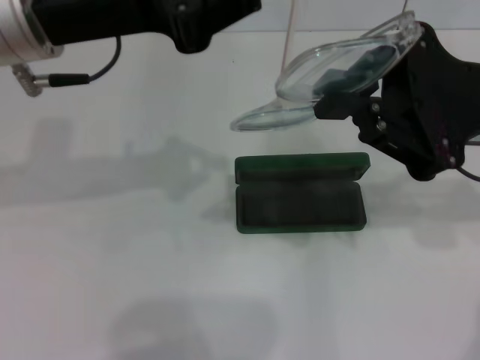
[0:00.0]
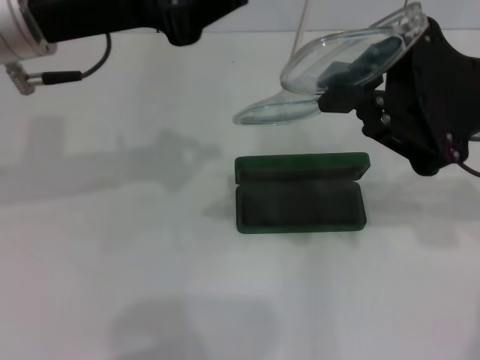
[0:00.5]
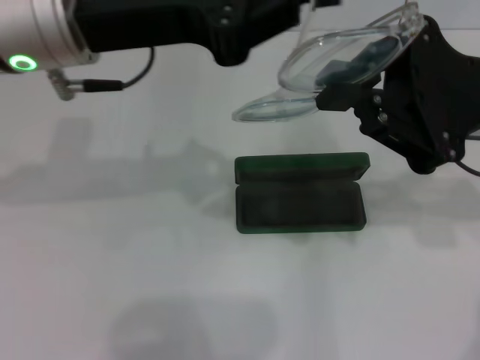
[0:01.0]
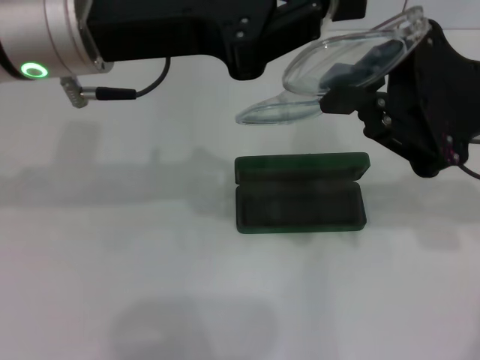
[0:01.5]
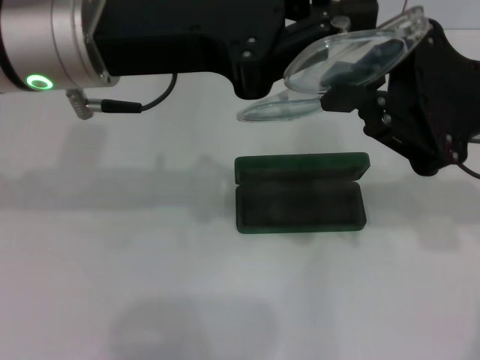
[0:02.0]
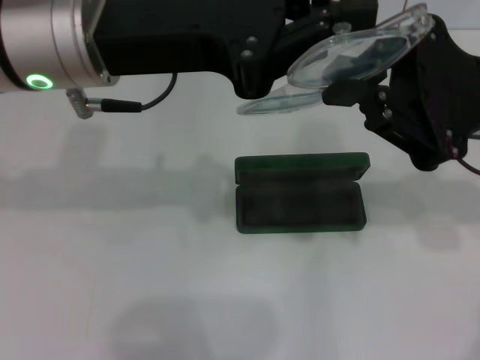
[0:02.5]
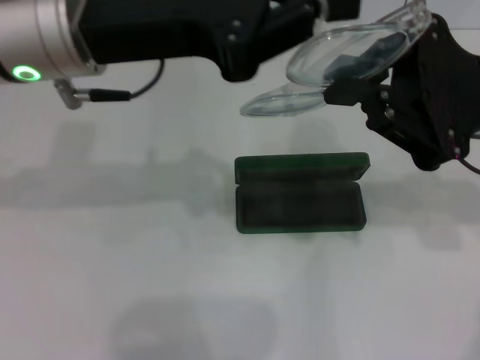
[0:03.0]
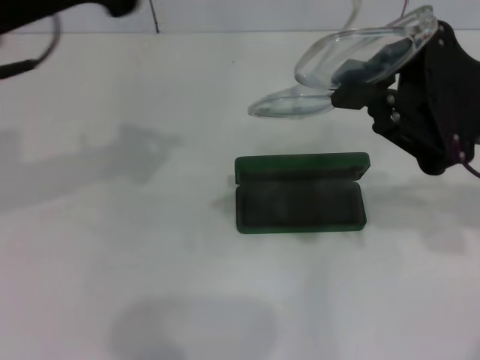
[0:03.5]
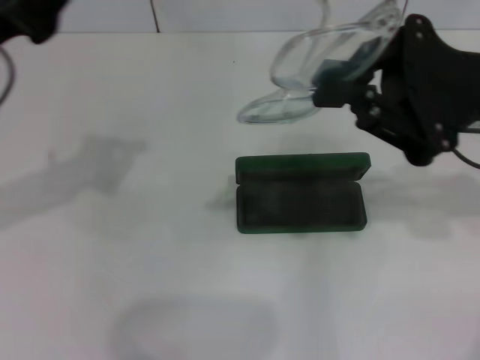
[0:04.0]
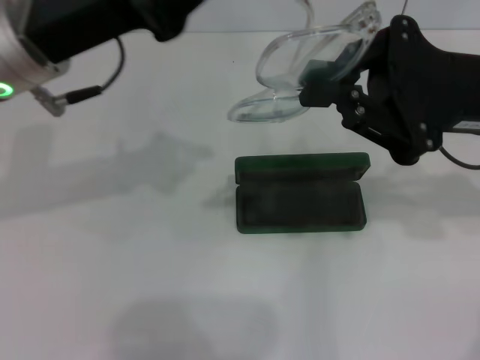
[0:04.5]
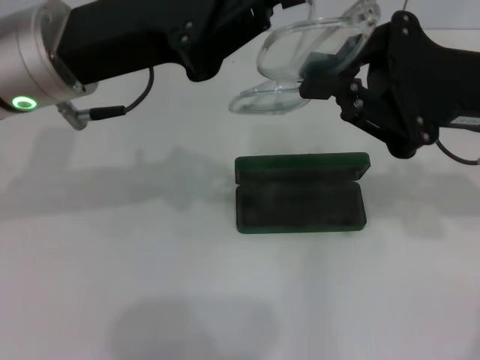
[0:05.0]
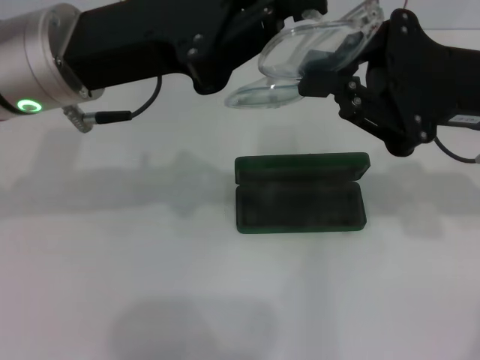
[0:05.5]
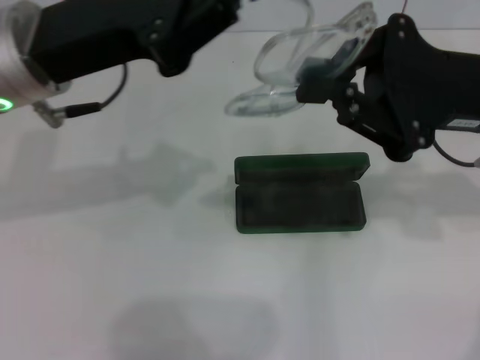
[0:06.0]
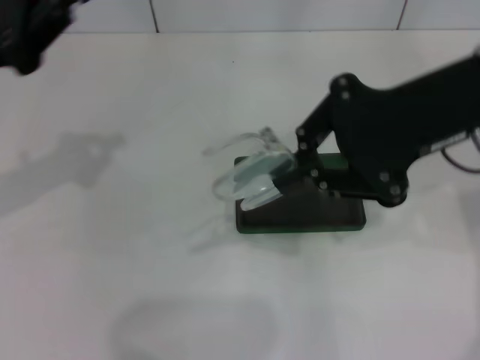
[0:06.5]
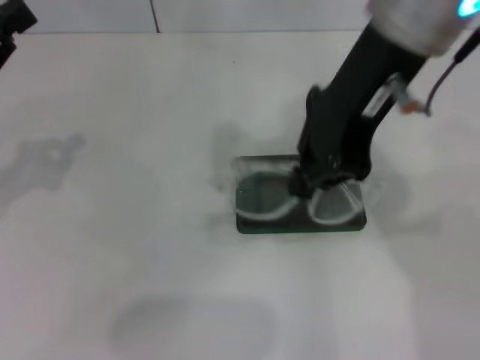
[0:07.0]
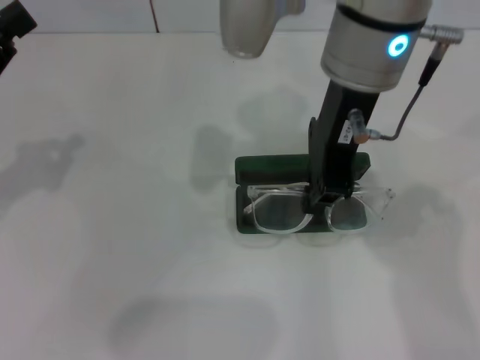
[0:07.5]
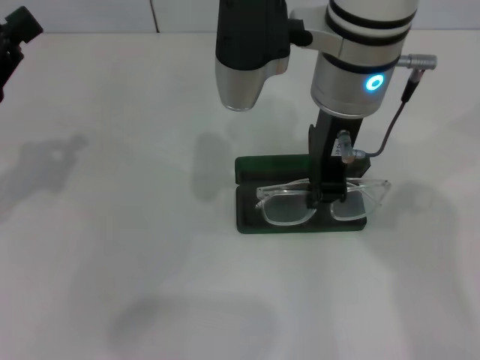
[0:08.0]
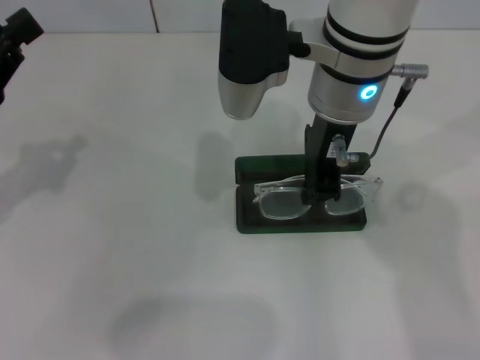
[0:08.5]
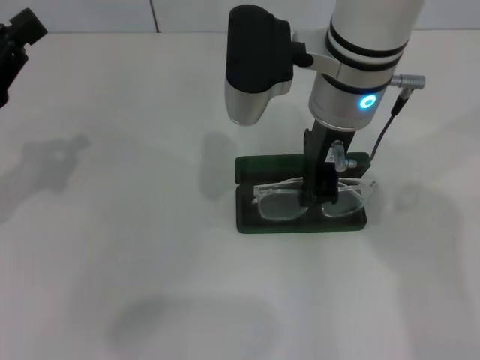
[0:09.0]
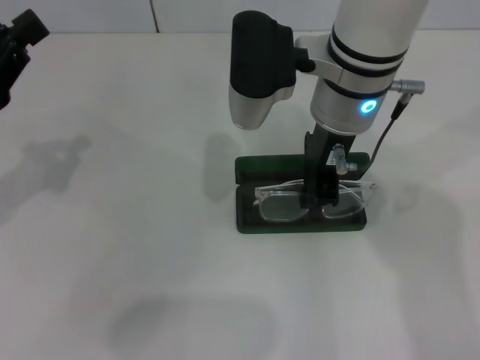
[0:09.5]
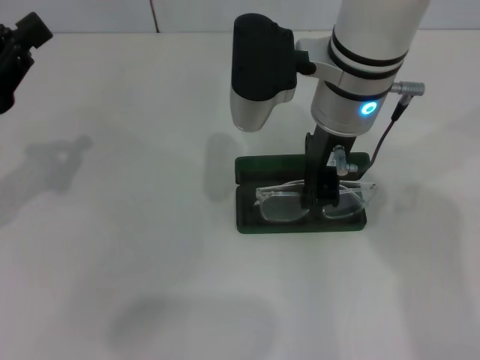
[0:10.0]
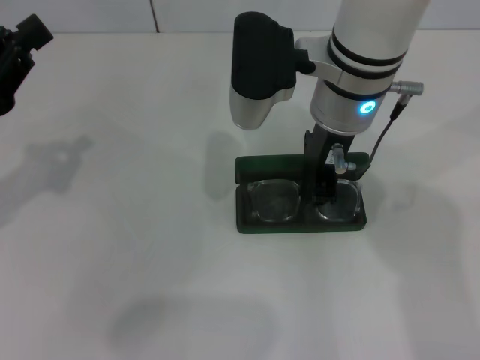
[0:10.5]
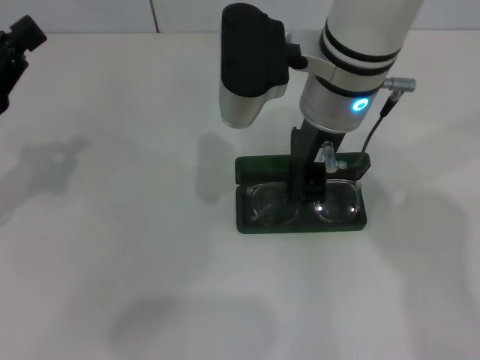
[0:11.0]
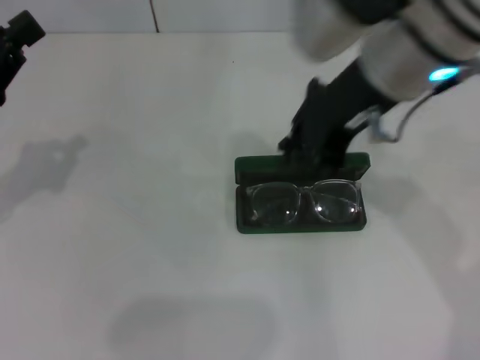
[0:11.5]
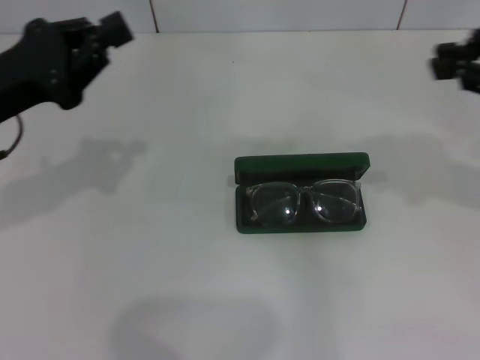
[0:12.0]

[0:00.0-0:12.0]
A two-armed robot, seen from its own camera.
Step, 0:00.0 to 0:03.0: Fold the frame with your left hand.
Step, 0:03.5 to 0:10.5: Put the glasses into the case with your right hand.
0:00.0 to 0:02.0: The grippers stay close to where they were, moving slightly.
0:02.0 to 0:04.0: The left gripper heads to the left, covering approximately 10 cm.
0:04.0 to 0:06.0: The left gripper travels to the right by roughly 5 cm.
0:06.0 to 0:08.0: The left gripper shifts some 15 cm to the left and downward. The right gripper travels to the left by some 15 cm.
0:08.0 to 0:10.0: The grippers make only small movements.
0:10.0 to 0:12.0: The left gripper ends up some 5 cm from where it was; the right gripper moves to the right, roughly 25 cm.

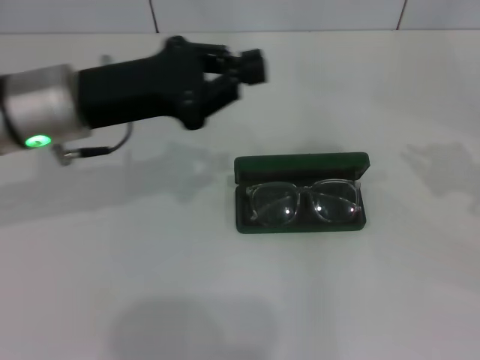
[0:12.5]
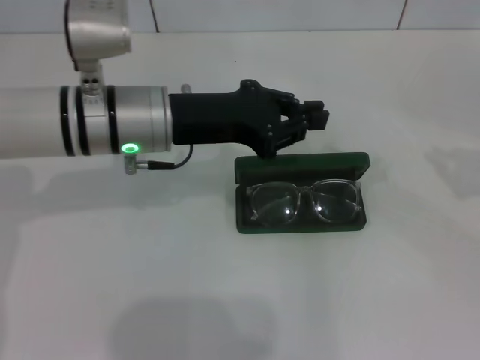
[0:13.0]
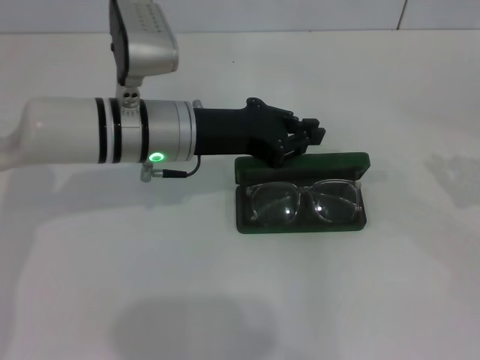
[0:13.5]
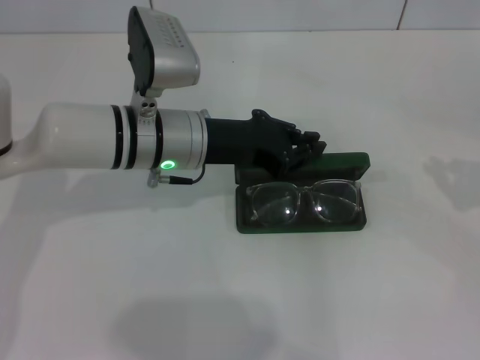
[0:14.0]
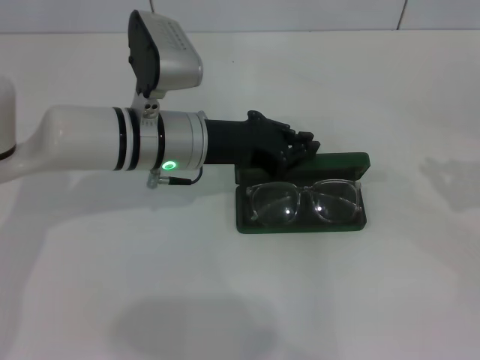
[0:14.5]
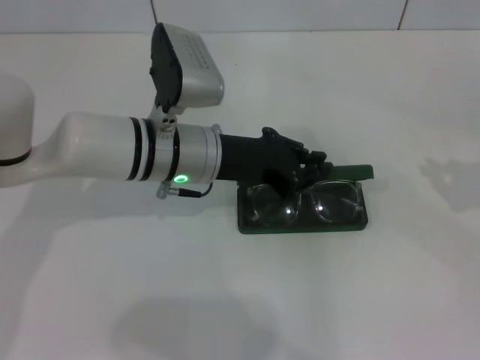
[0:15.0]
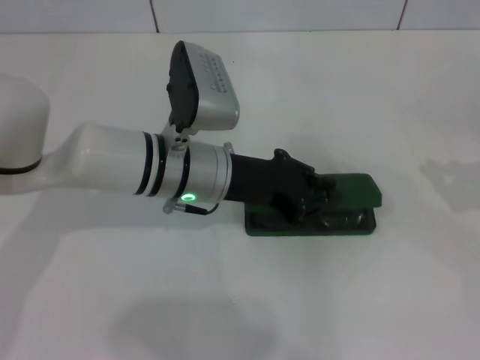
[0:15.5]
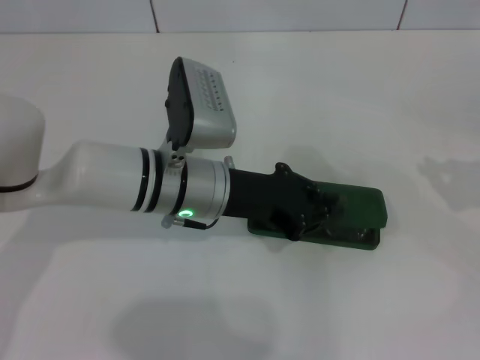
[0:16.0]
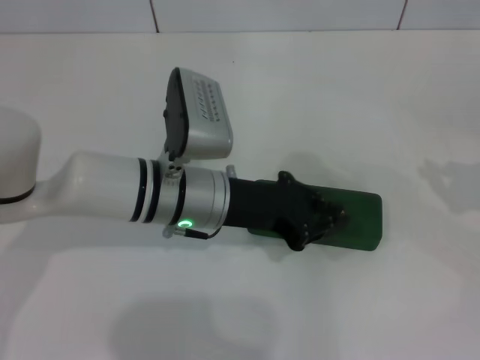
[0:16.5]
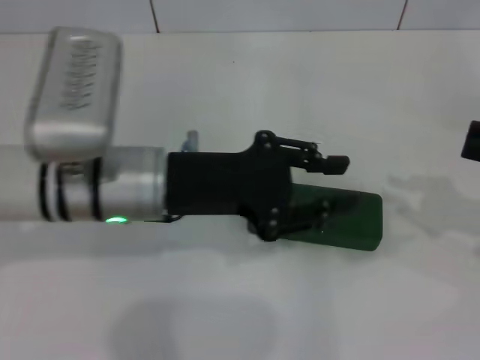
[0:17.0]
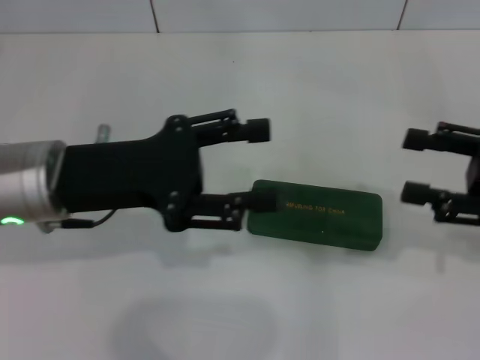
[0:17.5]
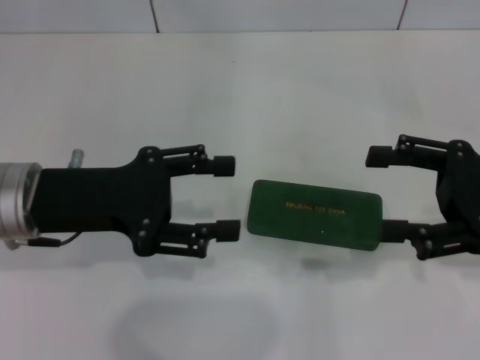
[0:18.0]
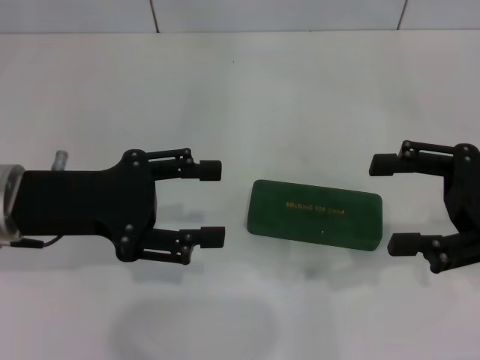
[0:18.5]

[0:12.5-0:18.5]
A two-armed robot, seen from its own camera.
Step, 0:12.5 to 0:16.0: Close the glasses case with your left hand.
0:12.5 to 0:14.5: The right gripper heads downward, covering approximately 5 cm; the left gripper goes approximately 10 cm to the right and downward.
0:14.5 to 0:16.5: The left gripper shifts by roughly 5 cm.
0:16.5 to 0:18.5: The left gripper moves to the left and upward, roughly 15 cm, and opens; the right gripper travels to the left by approximately 10 cm, and opens up.

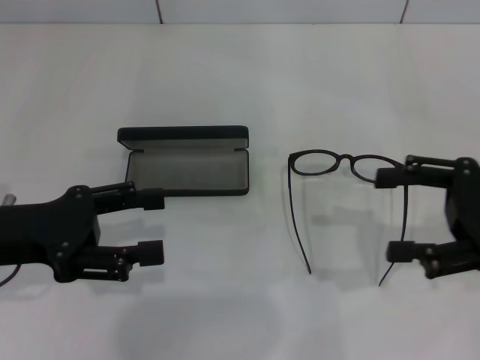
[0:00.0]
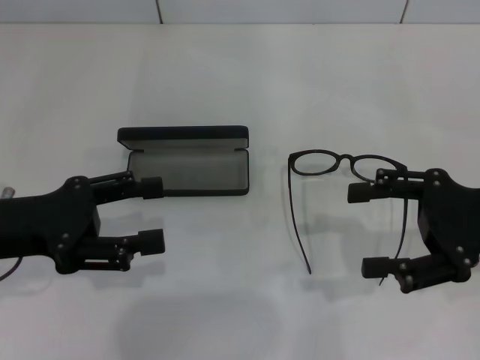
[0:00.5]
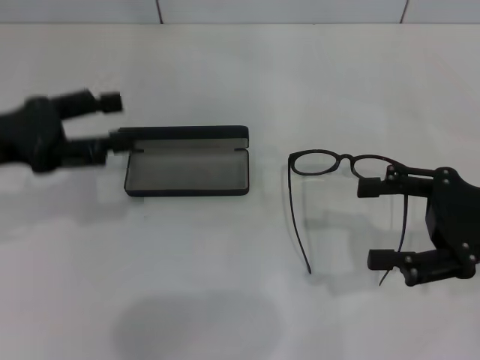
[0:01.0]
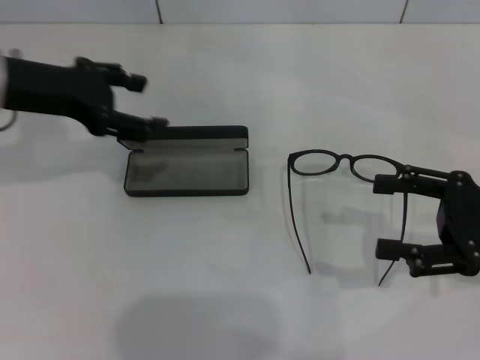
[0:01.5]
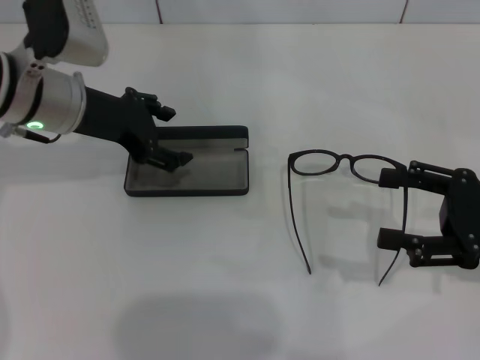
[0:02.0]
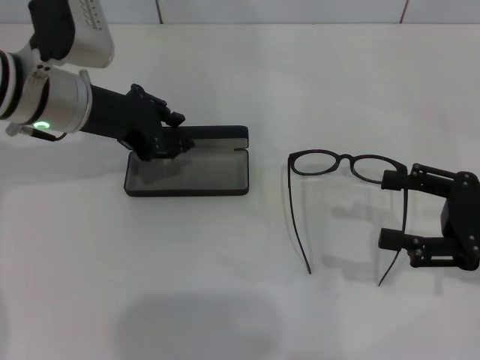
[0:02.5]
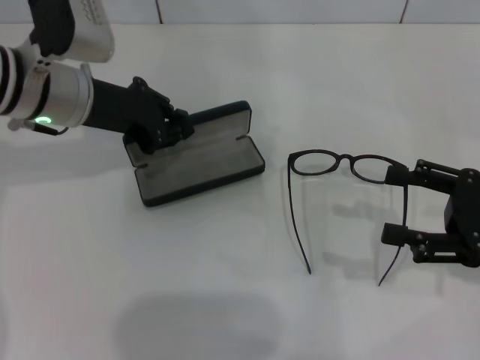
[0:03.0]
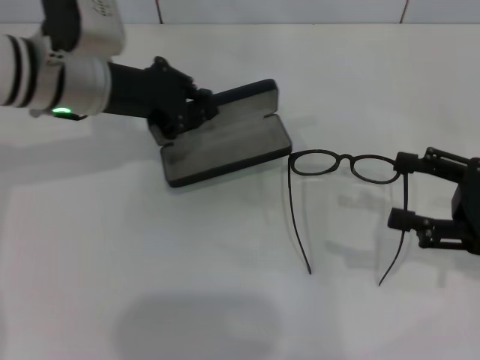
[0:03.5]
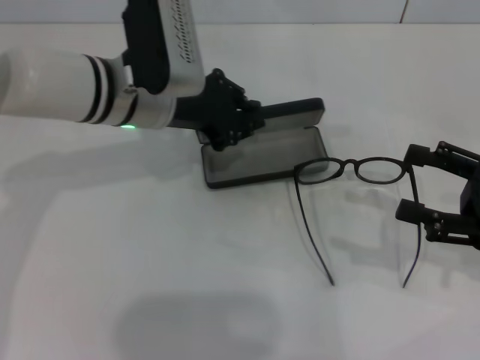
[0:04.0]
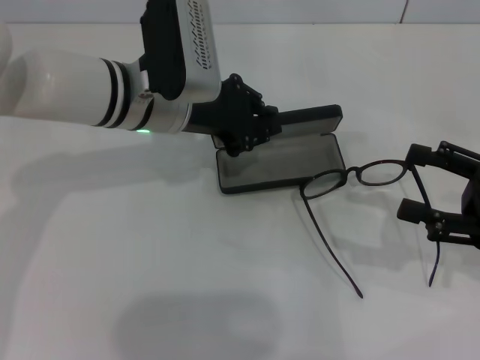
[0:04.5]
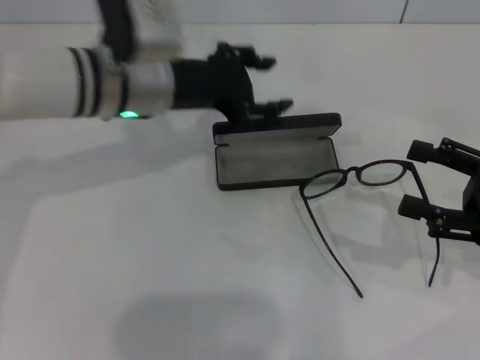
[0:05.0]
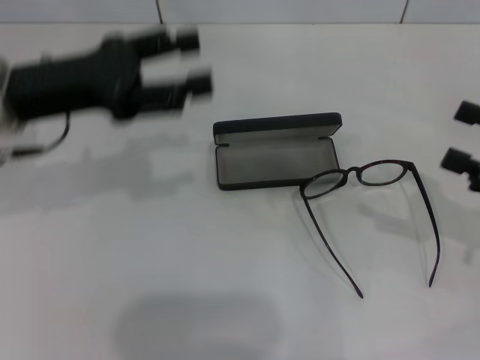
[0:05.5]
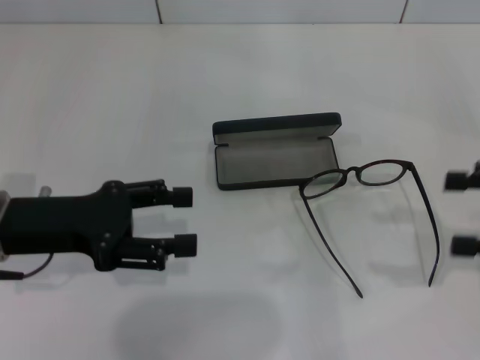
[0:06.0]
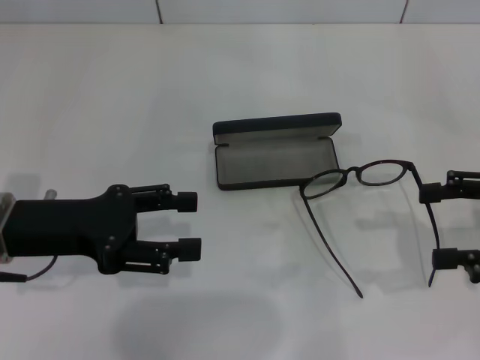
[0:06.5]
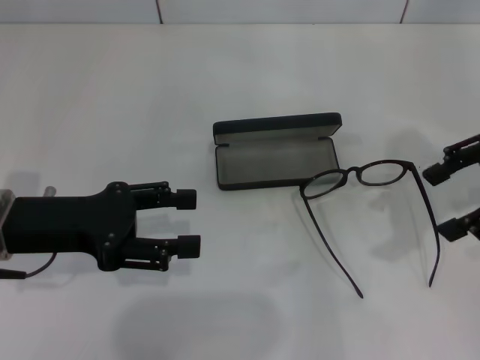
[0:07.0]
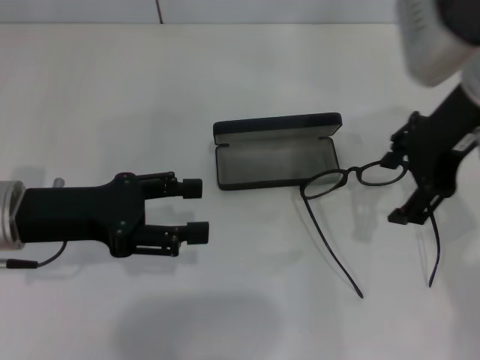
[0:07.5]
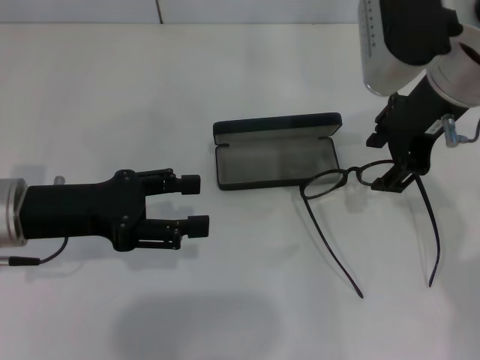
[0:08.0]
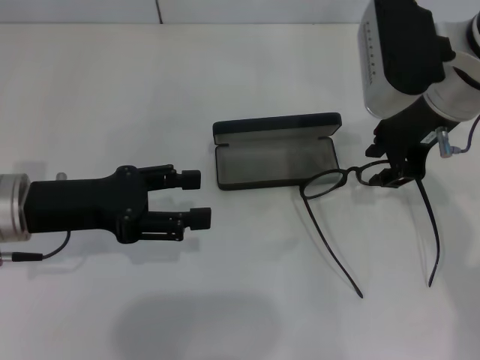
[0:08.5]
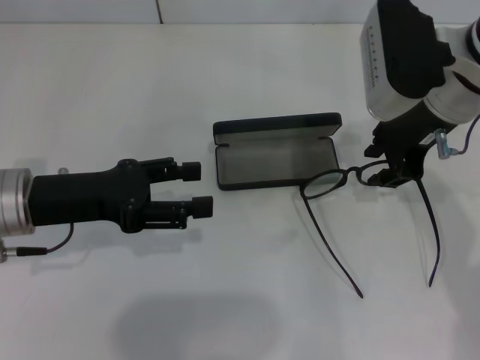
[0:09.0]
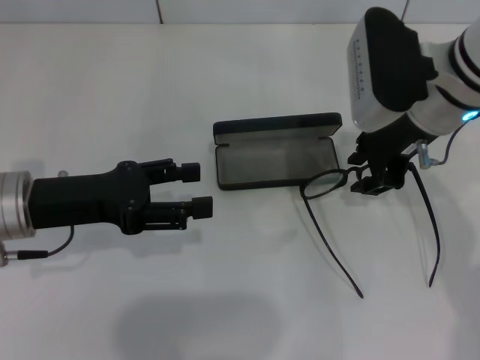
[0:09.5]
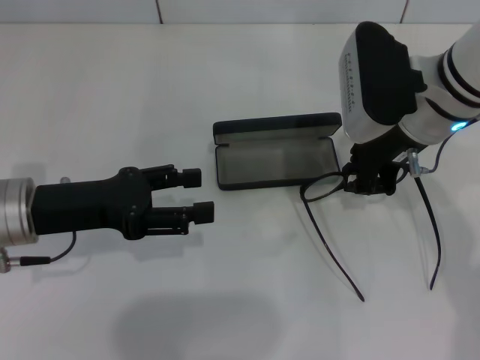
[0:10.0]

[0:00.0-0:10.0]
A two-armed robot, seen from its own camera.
Step, 0:00.0 to 0:02.5: Grab the glasses case with your left hand.
Step, 0:03.0 to 0:04.5: Place the glasses case in the center of the table with your left hand.
0:00.0 to 0:02.0: The left gripper travels forward and to the right by roughly 15 cm.
0:02.0 to 0:04.0: The left gripper moves to the right, roughly 10 cm, and closes up.
0:04.0 to 0:06.0: The right gripper changes place by about 5 cm; the left gripper shifts about 20 cm to the left and backward, and opens up.
0:06.0 to 0:08.0: The right gripper moves to the left, upward and forward, approximately 25 cm.
0:08.0 to 0:10.0: The right gripper moves downward, some 5 cm, and closes its fingers.
